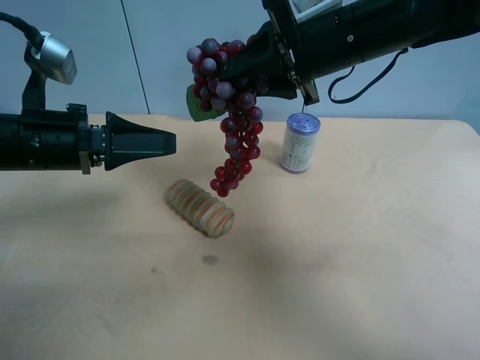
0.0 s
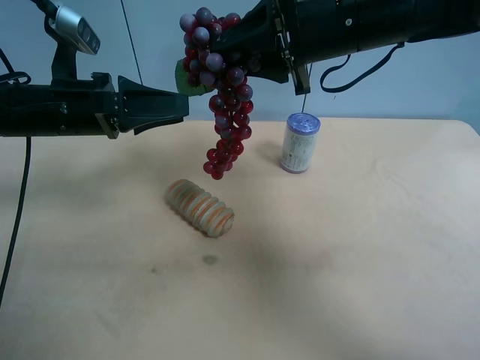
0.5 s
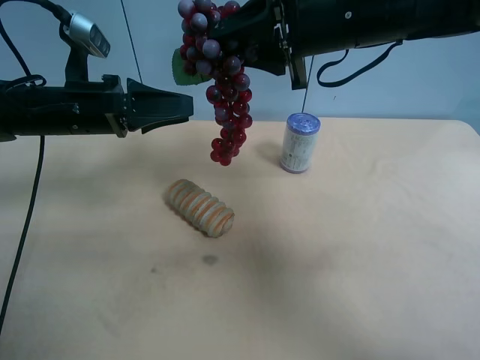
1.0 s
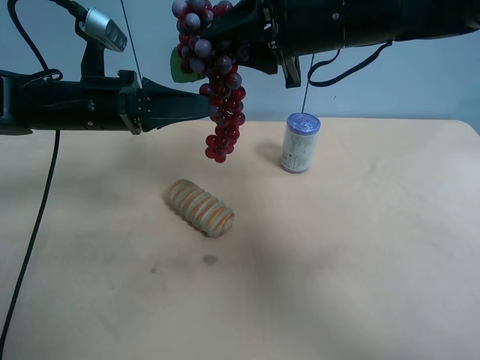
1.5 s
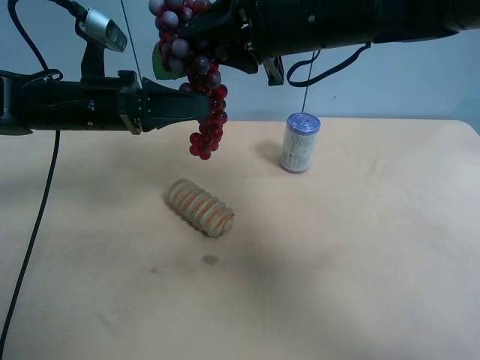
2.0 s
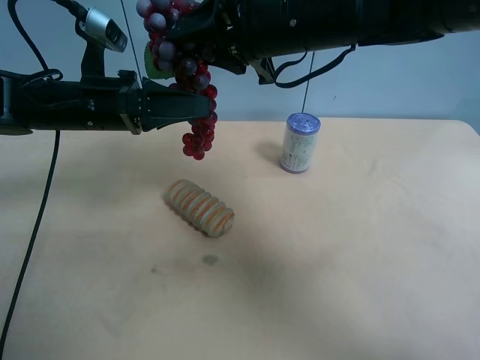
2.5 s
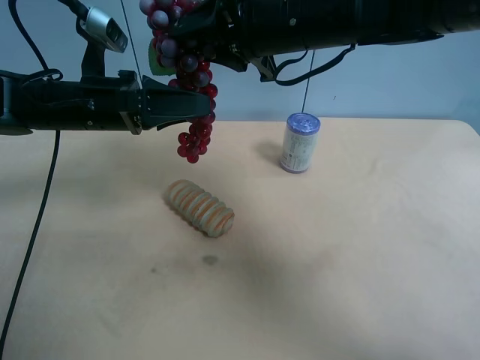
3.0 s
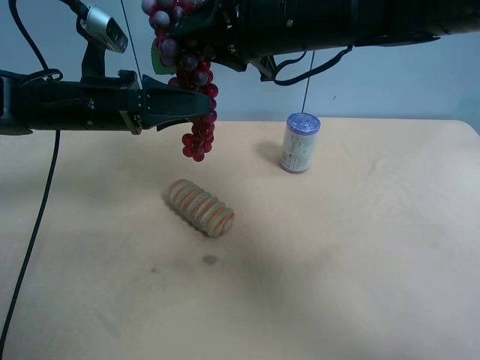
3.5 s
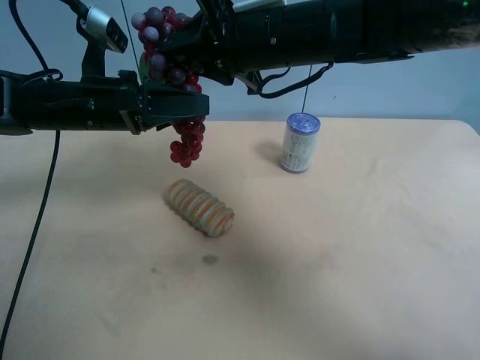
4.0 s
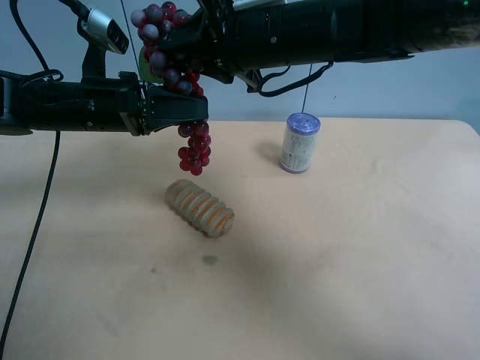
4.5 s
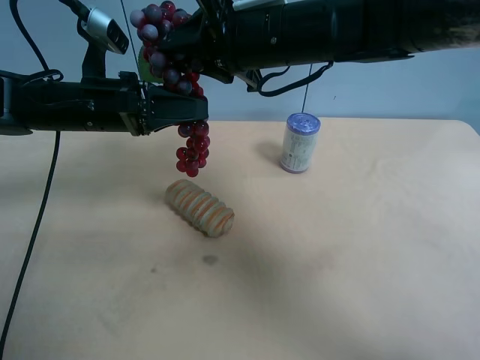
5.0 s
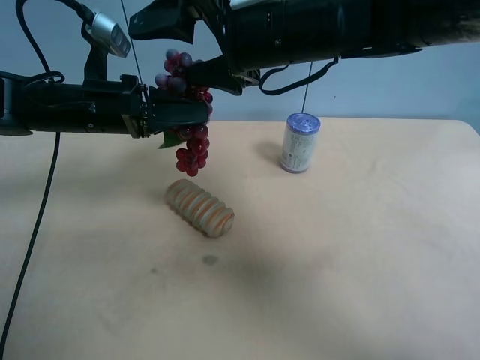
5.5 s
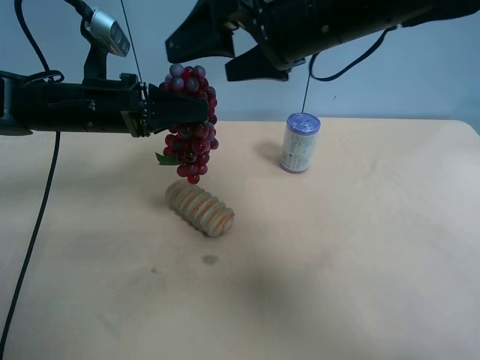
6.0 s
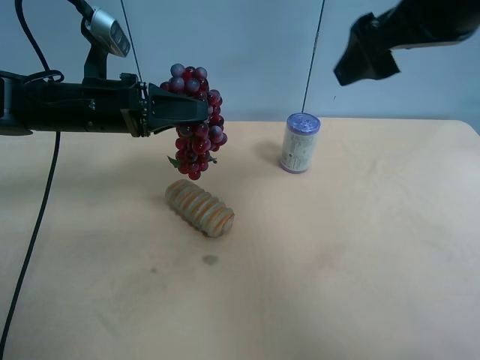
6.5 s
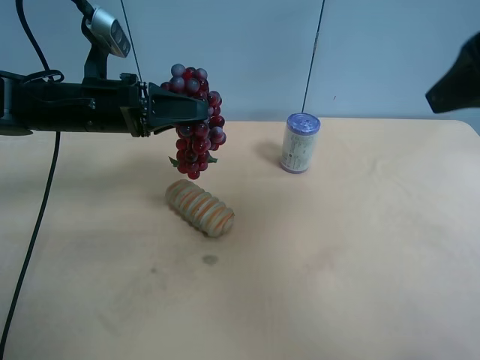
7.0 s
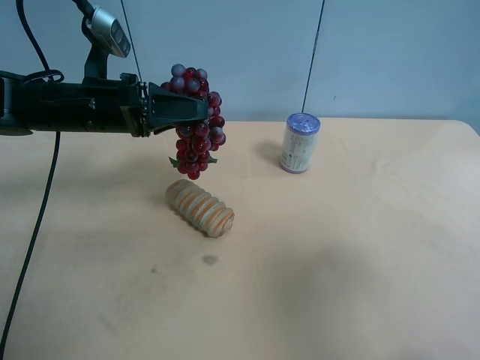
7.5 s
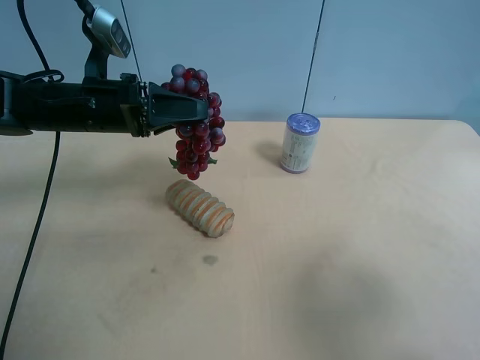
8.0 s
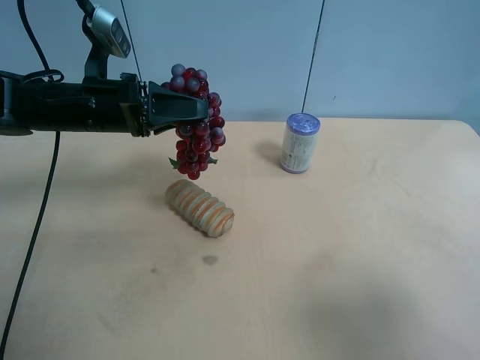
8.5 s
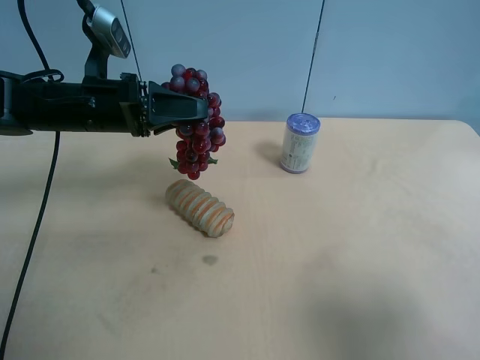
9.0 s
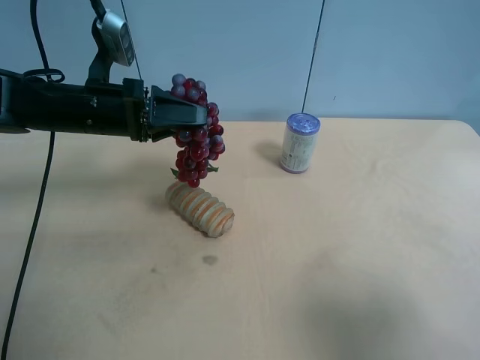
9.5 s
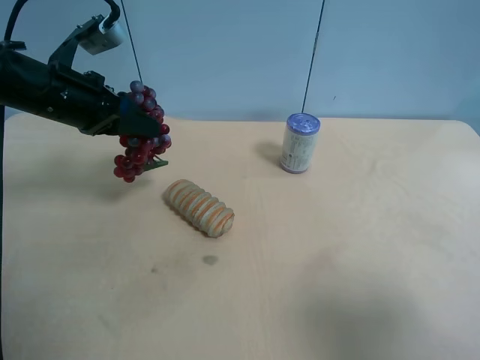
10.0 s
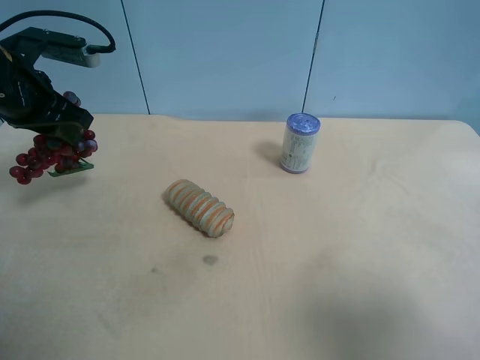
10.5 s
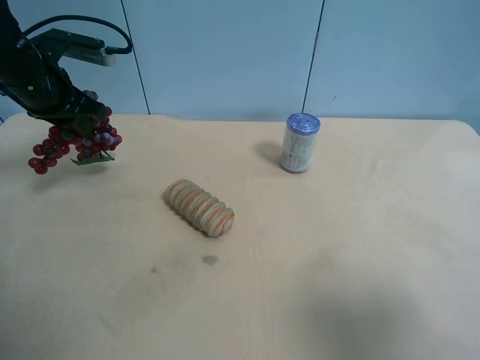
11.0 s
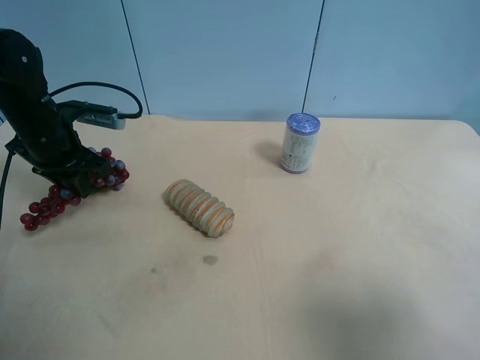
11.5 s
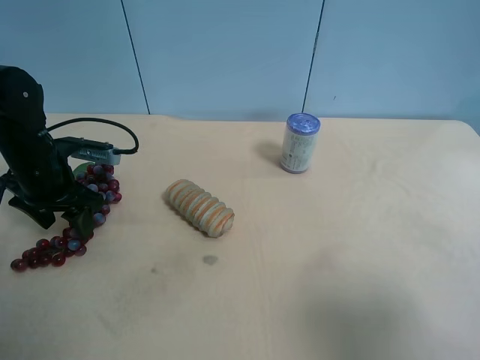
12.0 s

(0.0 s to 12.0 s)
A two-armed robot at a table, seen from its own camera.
Task of the whole recording: use the right gripper to pick up the item and transfer it from the right gripper to the left gripper.
0.0 s - 2.0 s: The left gripper shifts approximately 5 cm forward.
2.0 s - 4.0 s: The grippers make only small movements.
4.0 s - 6.0 s: The right gripper ends up roughly 5 cm from where it was, and opens, while the left gripper closes.
6.0 s - 8.0 s: The right gripper moves backward and to the right, some 30 cm.
8.0 s - 10.0 s: The left gripper changes place by some 5 cm.
10.0 s - 12.0 s: The left gripper shifts some 10 cm downward, and opens up.

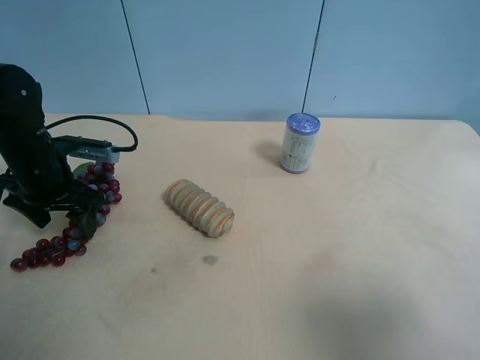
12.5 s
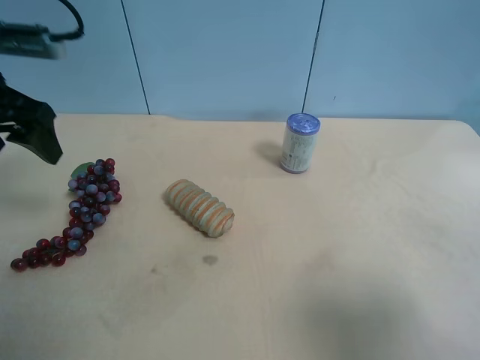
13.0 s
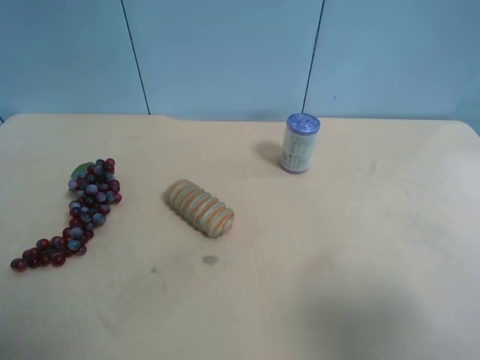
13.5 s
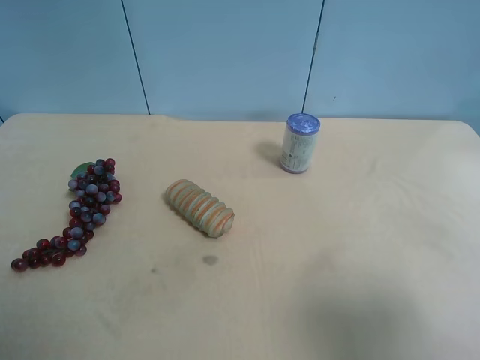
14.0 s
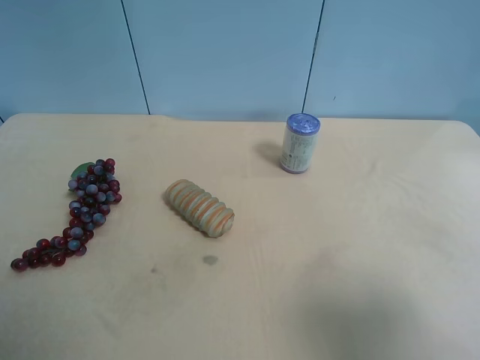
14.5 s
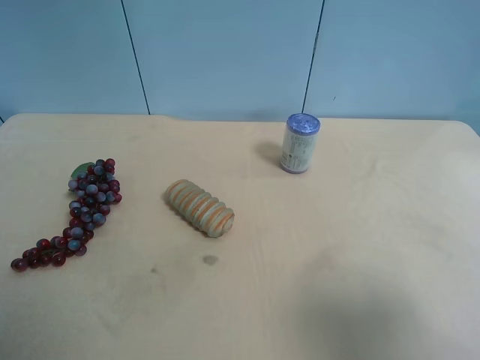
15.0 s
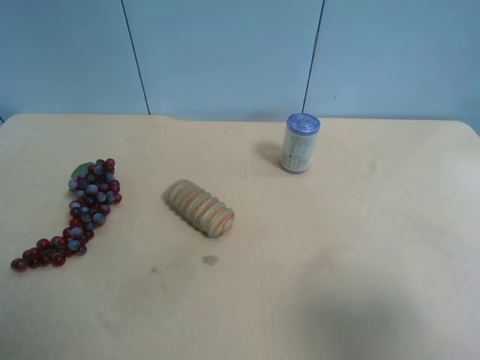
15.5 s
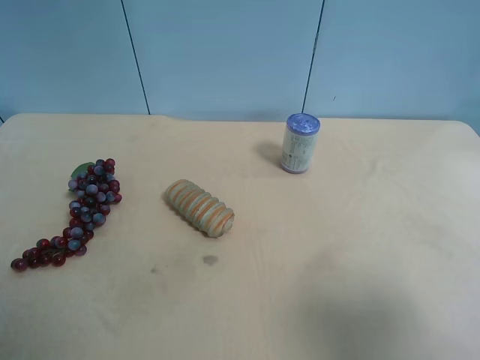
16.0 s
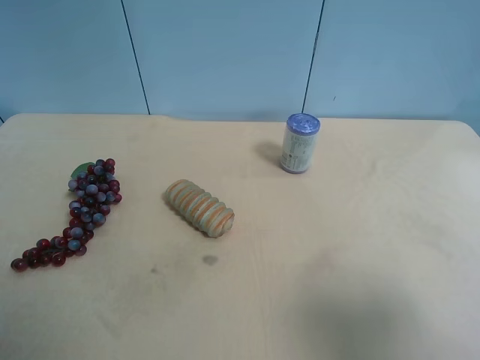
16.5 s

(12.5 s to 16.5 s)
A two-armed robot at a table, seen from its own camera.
Task of the whole recording: use the right gripper to pick up the item and transfer it from the right gripper to the left gripper.
12.5 s - 14.5 s: The left gripper travels backward and upward by approximately 30 cm.
